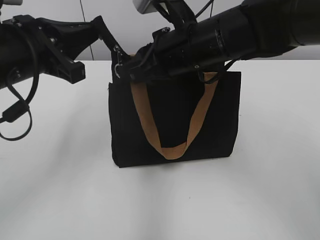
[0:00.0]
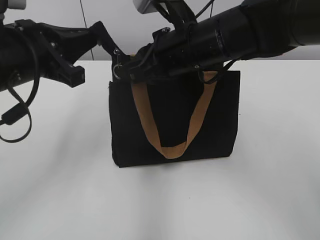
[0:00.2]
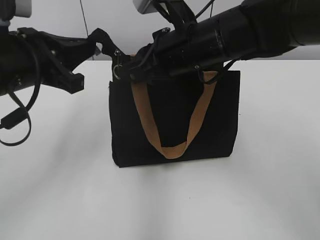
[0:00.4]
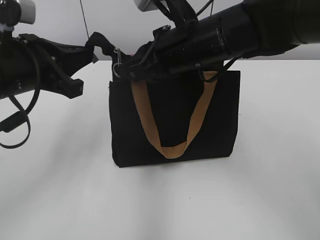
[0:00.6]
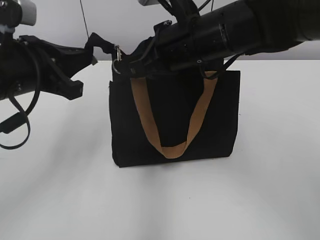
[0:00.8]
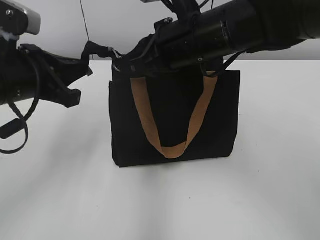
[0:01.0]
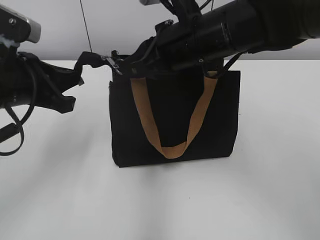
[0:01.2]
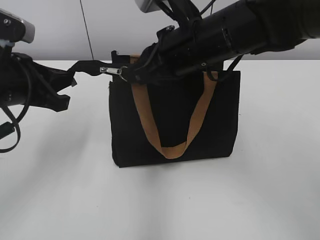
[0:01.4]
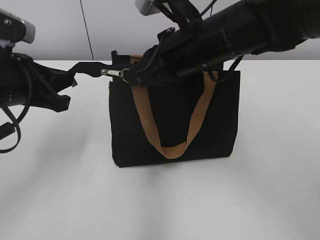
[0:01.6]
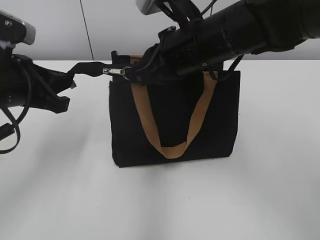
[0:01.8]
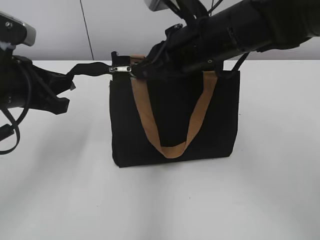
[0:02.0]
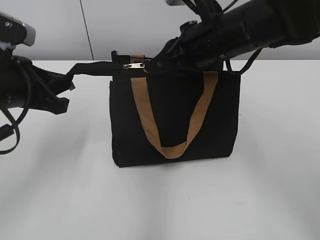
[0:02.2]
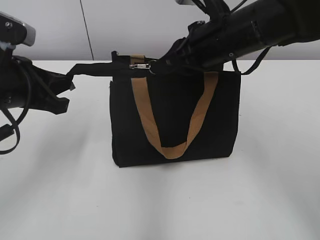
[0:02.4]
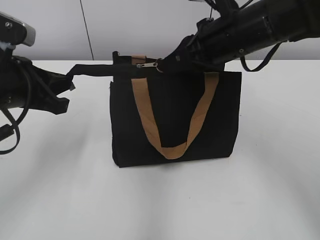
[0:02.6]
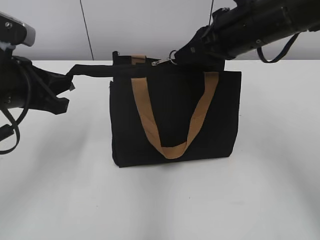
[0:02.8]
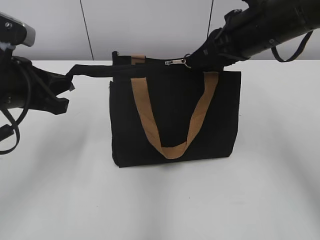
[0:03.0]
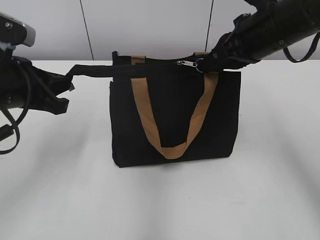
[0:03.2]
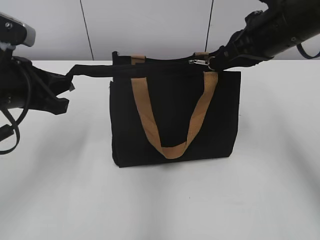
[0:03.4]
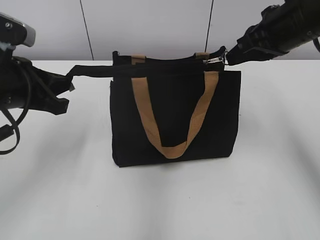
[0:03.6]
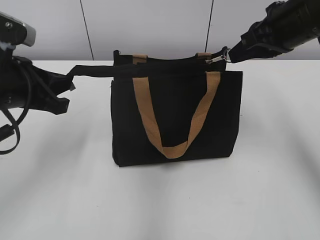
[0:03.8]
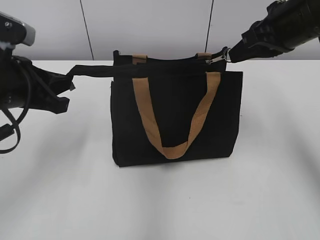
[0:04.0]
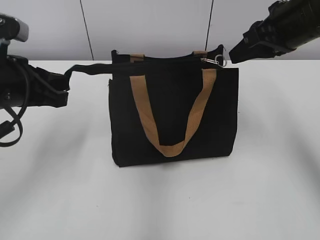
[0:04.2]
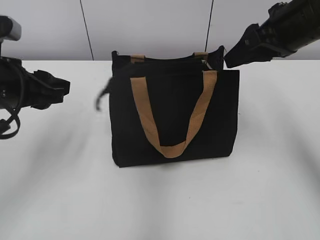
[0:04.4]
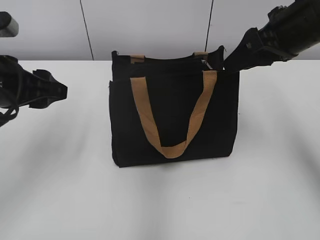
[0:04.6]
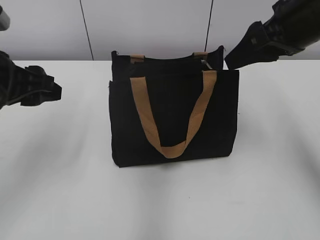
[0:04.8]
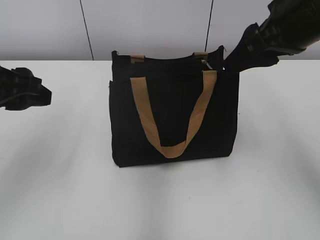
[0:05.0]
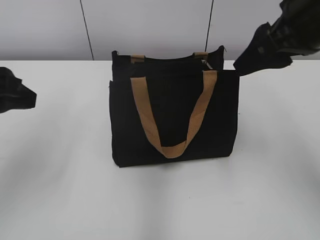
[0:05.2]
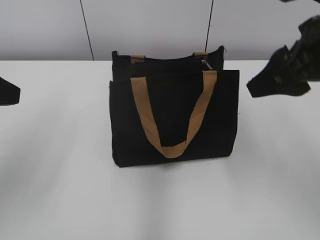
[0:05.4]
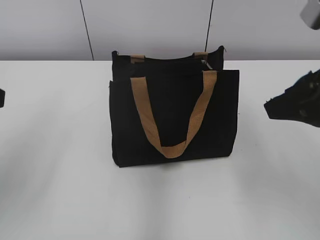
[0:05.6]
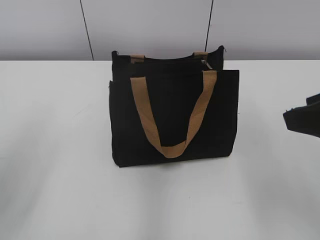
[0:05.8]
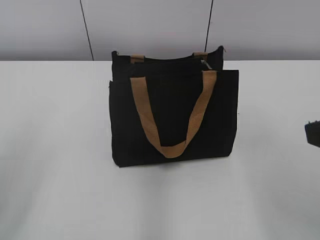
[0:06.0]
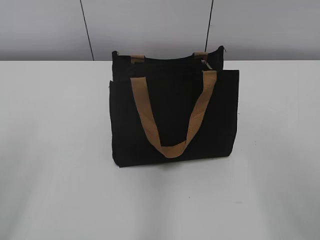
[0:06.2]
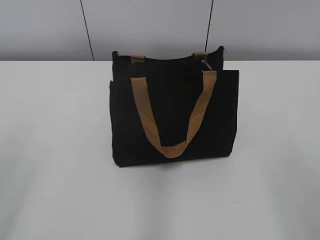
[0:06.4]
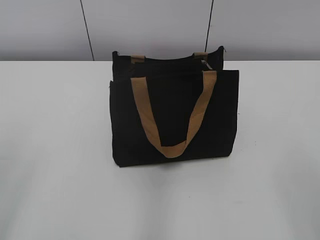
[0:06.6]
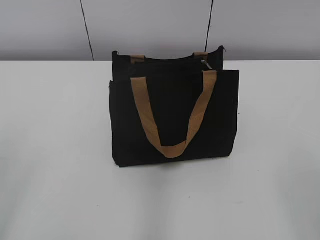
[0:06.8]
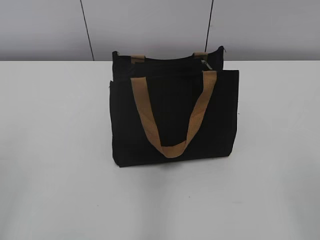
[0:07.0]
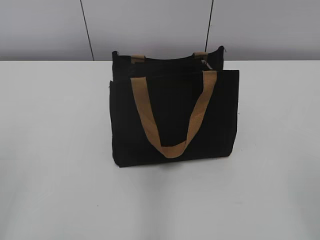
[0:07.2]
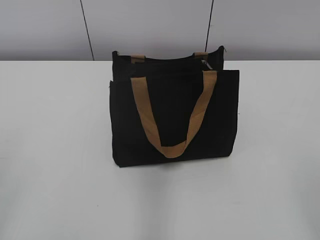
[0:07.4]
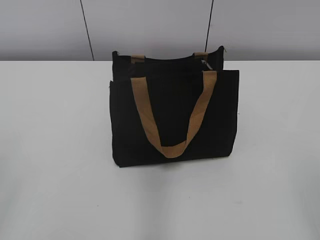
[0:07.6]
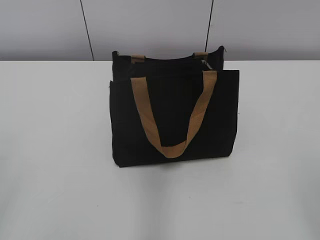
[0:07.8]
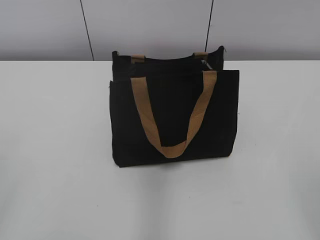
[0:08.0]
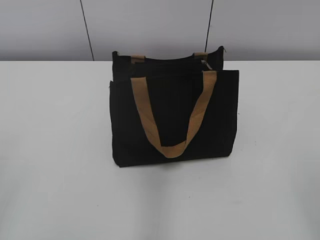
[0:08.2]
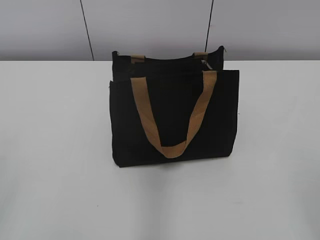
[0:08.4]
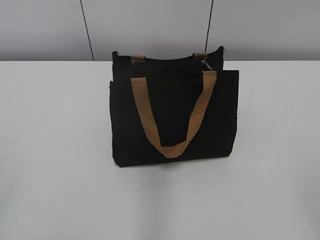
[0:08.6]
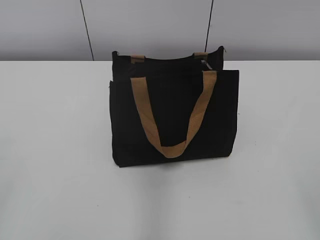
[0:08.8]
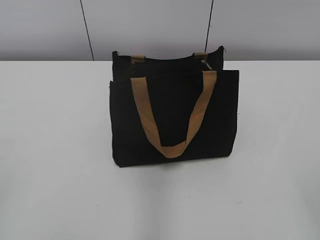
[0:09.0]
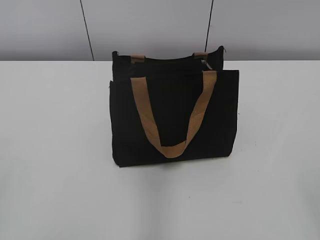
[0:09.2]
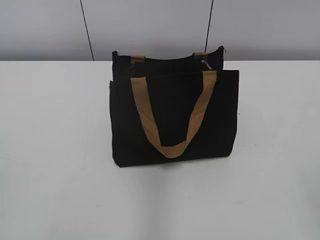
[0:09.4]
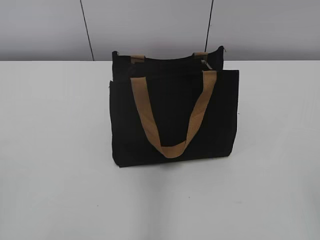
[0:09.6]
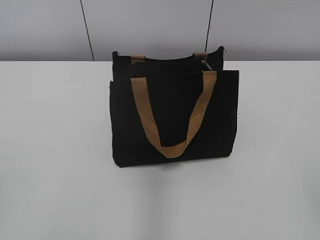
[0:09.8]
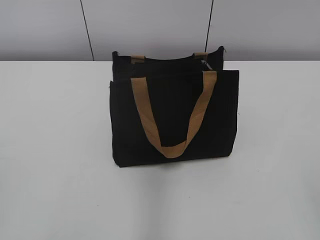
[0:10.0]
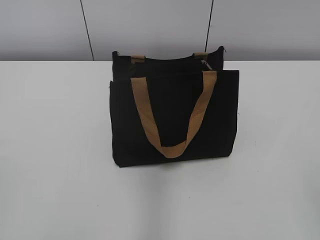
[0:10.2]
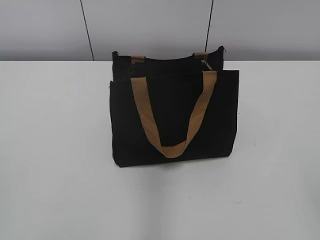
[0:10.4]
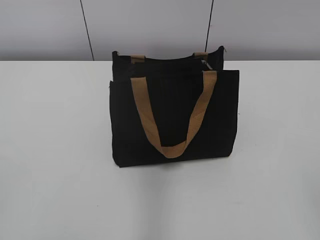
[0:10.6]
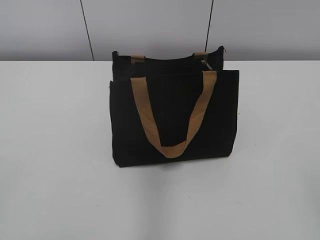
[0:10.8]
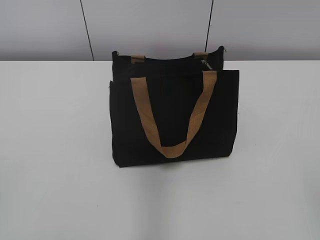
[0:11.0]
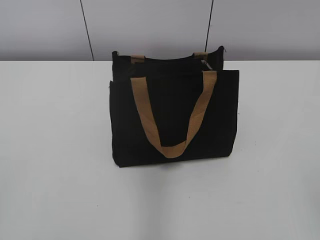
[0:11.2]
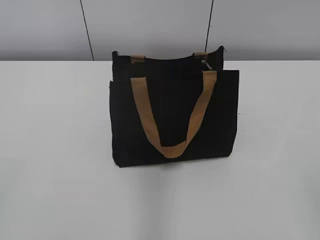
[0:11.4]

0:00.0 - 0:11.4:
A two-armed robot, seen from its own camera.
Step, 0:00.0 - 0:04.0: Zip up the bag with your right hand.
0:01.4 - 0:02.8: The right gripper heads to the right, covering some 10 cm.
0:02.8 - 0:04.2: The right gripper goes some 5 cm to the right.
0:04.2 - 0:05.6: The right gripper heads backward, covering roughly 15 cm, and opens. Meanwhile the left gripper goes roughly 10 cm backward and upward, and opens up.
0:05.6 - 0:07.2: The right gripper moves backward, roughly 20 cm.

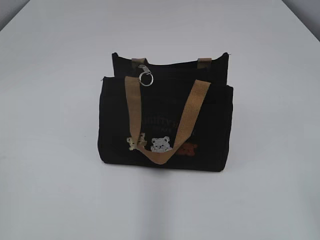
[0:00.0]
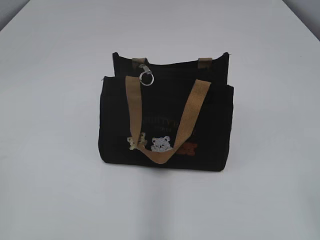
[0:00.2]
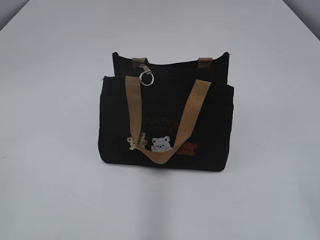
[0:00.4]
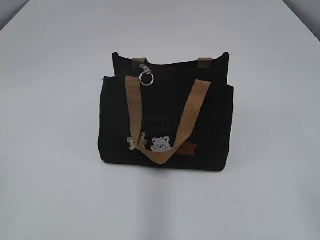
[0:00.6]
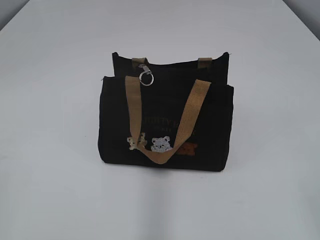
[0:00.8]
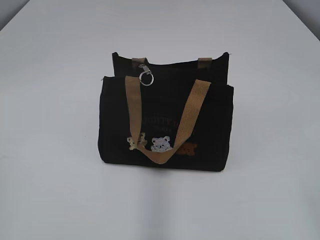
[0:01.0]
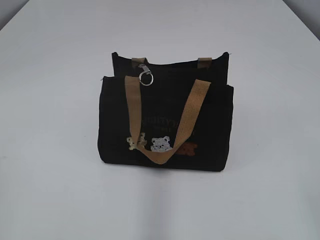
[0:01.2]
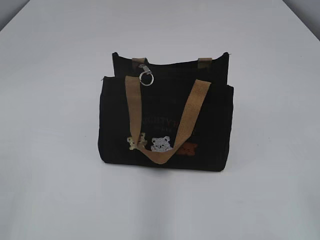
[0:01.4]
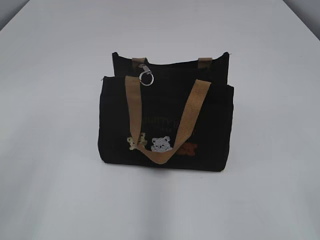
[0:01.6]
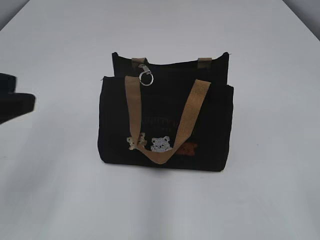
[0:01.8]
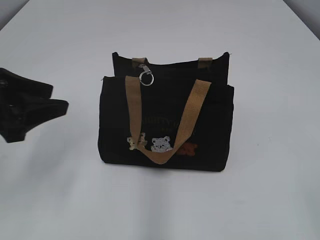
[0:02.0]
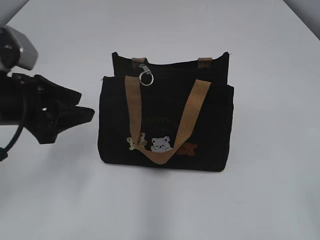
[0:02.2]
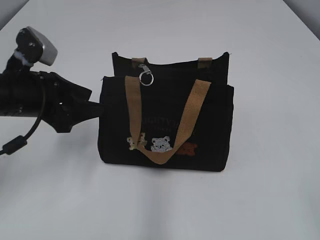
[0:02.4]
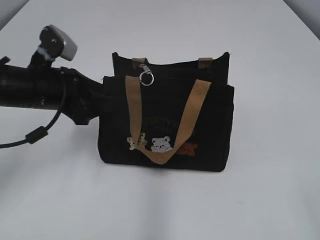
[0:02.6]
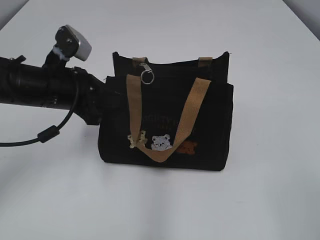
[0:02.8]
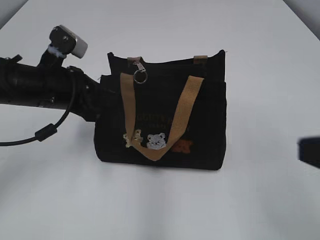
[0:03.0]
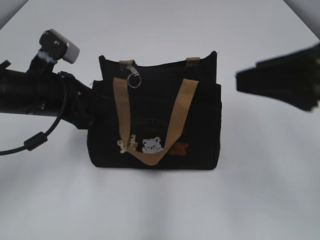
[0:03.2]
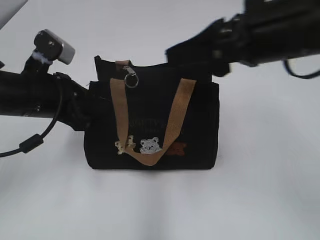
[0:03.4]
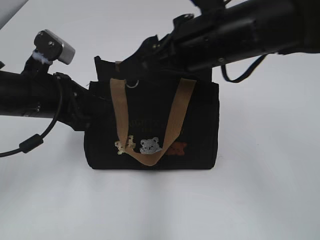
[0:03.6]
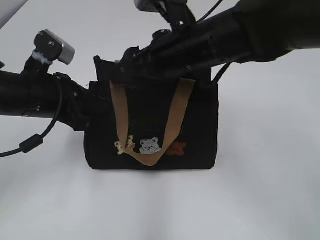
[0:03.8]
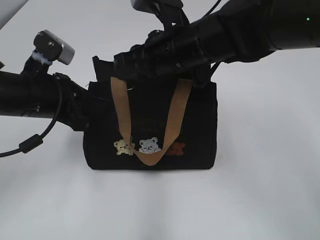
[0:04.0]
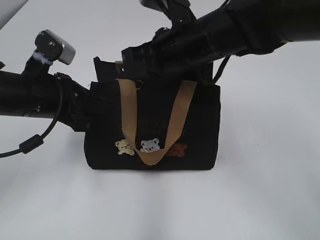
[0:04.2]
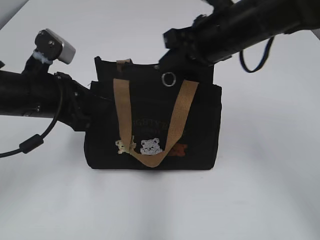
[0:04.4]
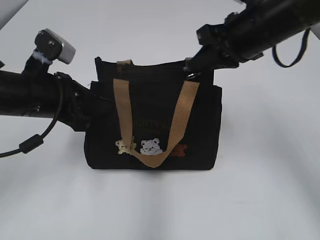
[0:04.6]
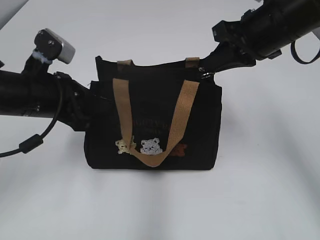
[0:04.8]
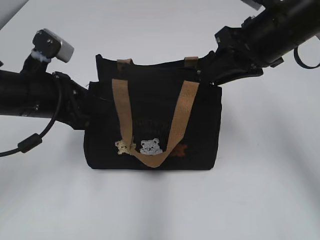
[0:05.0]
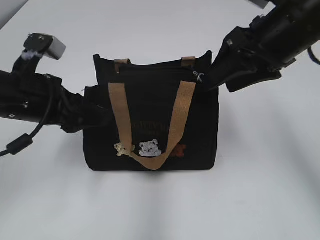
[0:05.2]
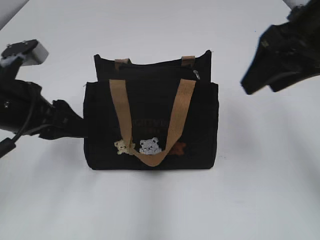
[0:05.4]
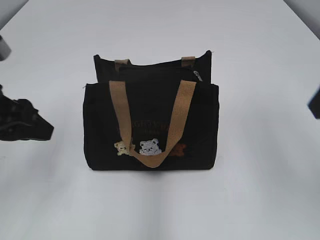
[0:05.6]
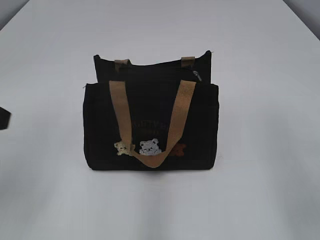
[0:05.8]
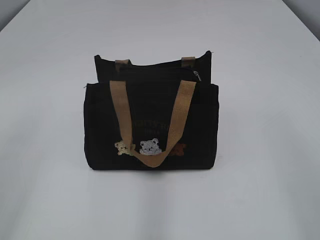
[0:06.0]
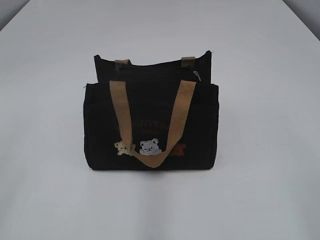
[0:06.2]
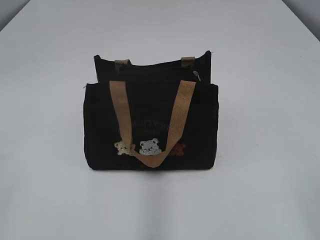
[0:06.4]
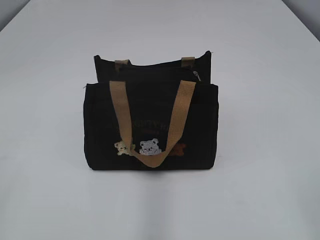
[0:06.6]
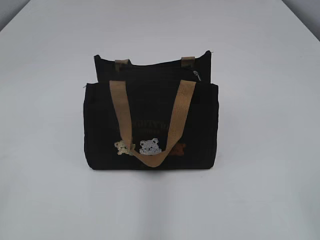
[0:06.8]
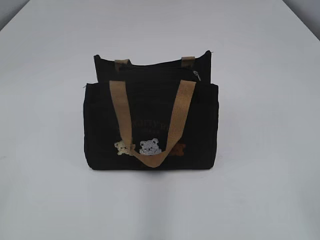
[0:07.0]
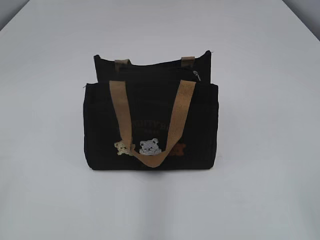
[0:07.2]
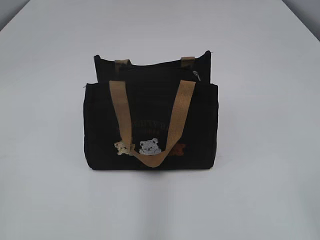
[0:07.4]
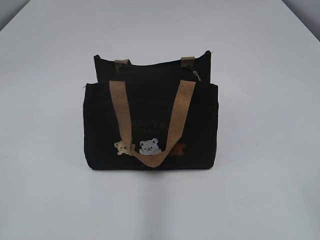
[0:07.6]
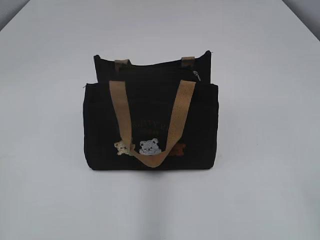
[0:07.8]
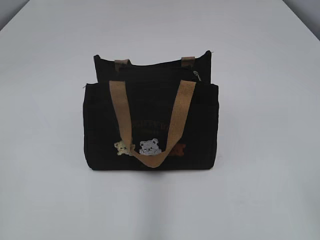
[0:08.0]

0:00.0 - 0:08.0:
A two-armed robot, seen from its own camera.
Step, 0:00.0 - 0:05.0: Pull open the zipper with your right hand.
0:01.6 - 0:03.2: The left gripper is displaced forward, downward and to the right by about 30 cm, and closes its fingers. Meanwhile the right gripper goes approximately 15 cm forward and to the left.
0:03.2 - 0:04.8: The right gripper moves forward, roughly 20 cm, and closes up.
0:04.8 - 0:06.4: The left gripper shifts about 30 cm backward, to the left and upward, and opens, while the right gripper goes about 30 cm backward, and opens.
